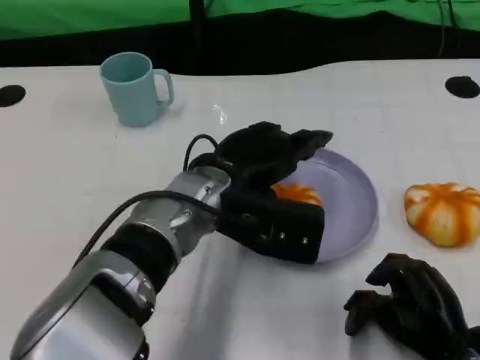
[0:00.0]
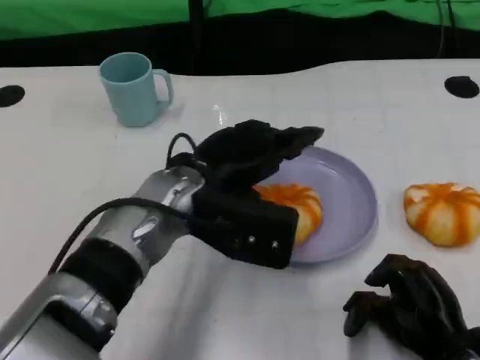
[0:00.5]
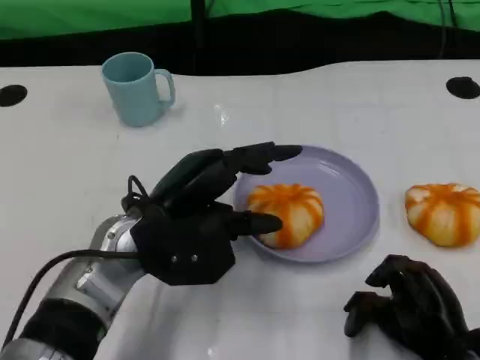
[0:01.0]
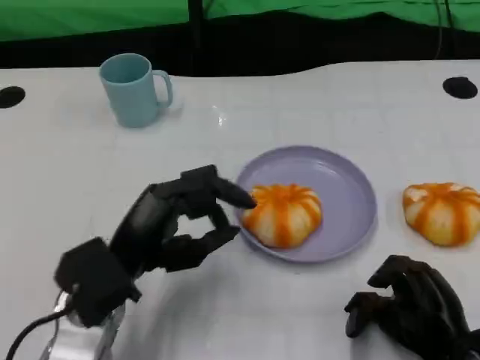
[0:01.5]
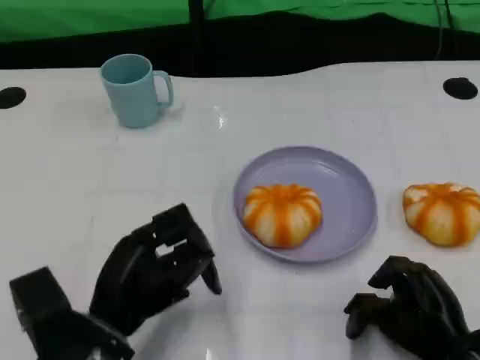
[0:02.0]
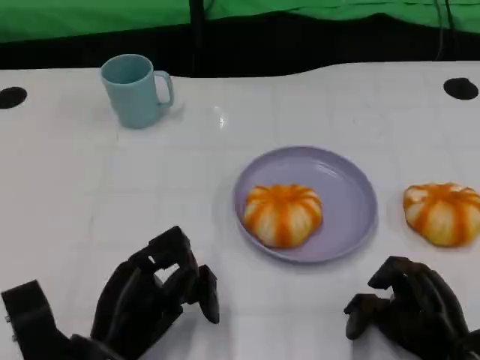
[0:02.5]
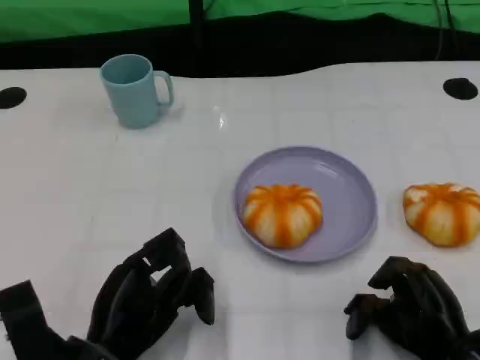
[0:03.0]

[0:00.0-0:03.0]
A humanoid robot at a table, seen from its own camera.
Task of the whole recording: Grasp the bread from the table and place it into the plate.
0:00.0 to 0:01.5: The left hand goes roughly 15 cm to the left, backward and downward.
0:01.5 to 0:03.0: The left hand travels backward by some 5 cm.

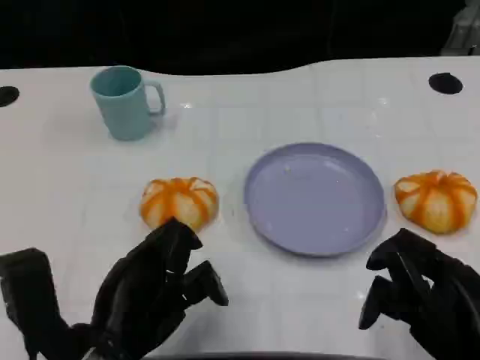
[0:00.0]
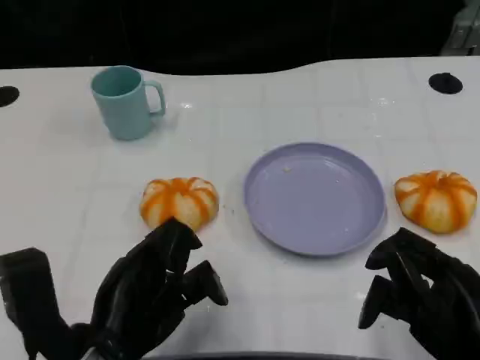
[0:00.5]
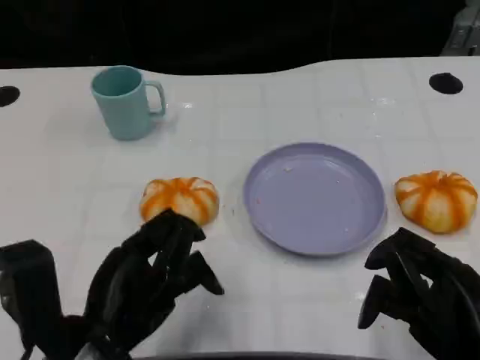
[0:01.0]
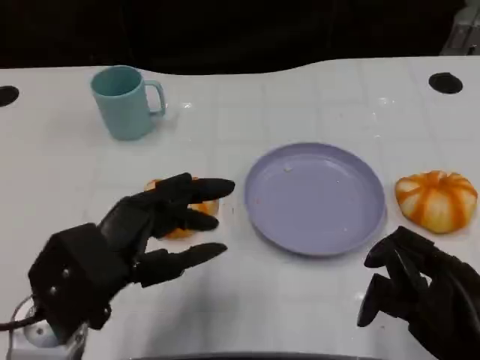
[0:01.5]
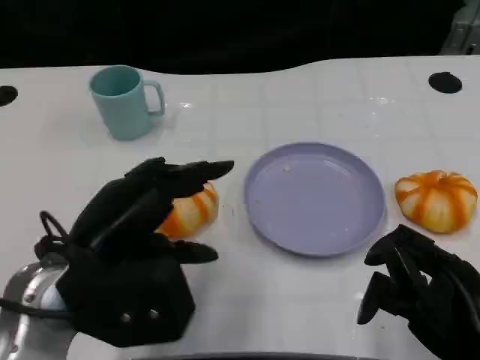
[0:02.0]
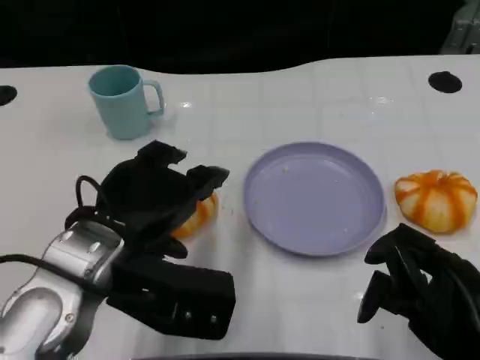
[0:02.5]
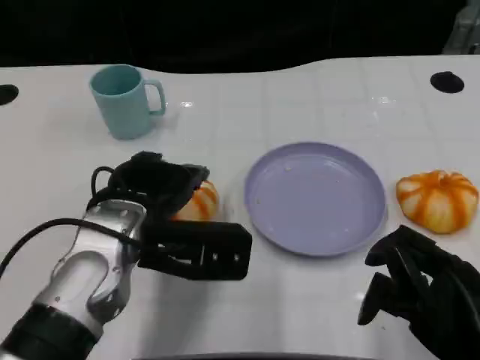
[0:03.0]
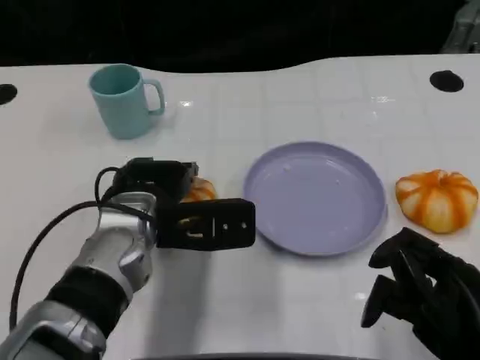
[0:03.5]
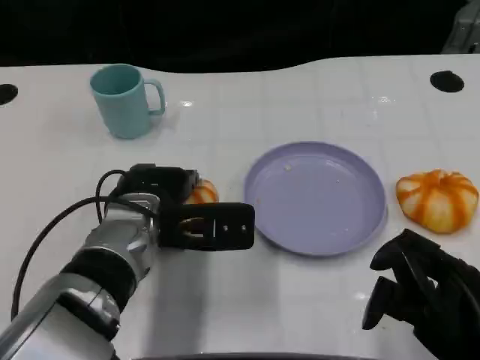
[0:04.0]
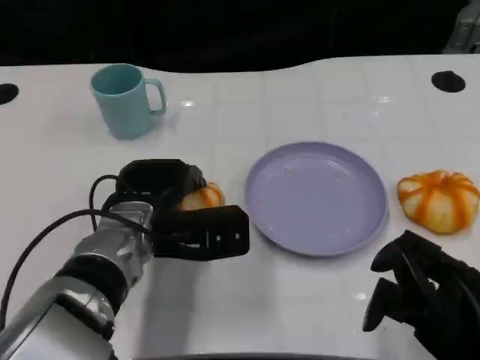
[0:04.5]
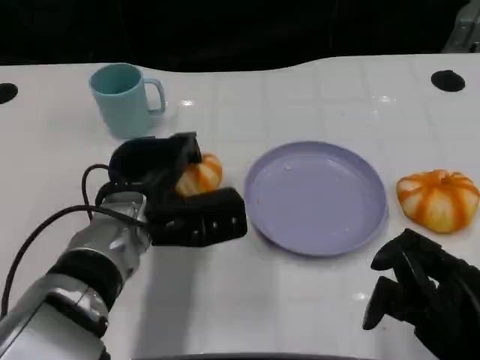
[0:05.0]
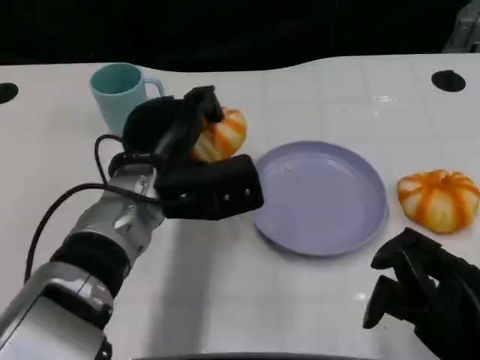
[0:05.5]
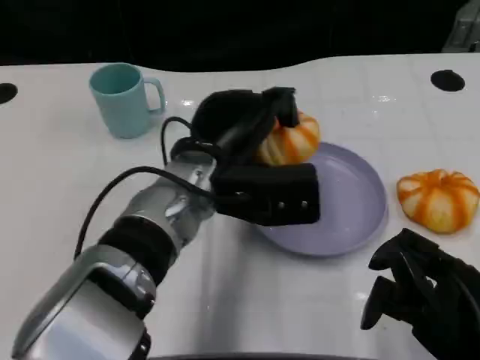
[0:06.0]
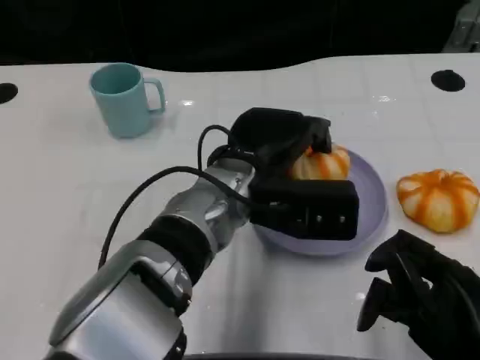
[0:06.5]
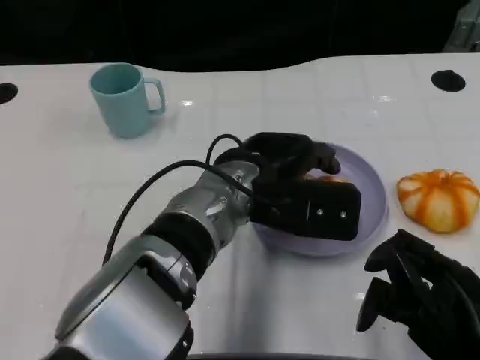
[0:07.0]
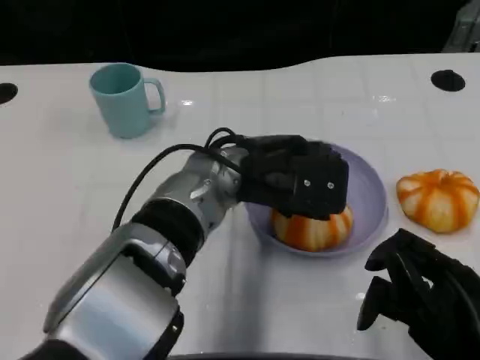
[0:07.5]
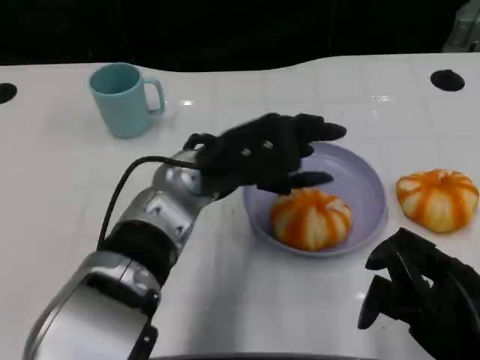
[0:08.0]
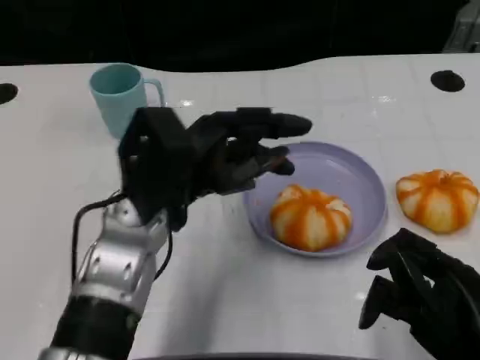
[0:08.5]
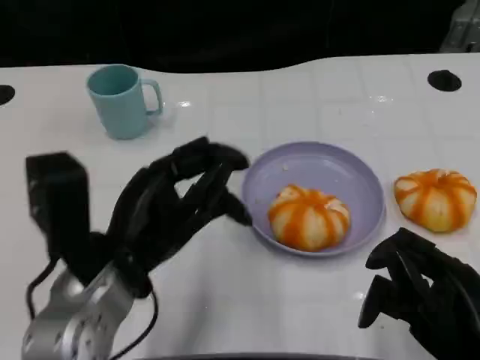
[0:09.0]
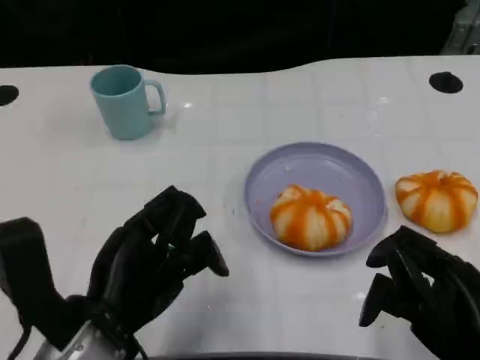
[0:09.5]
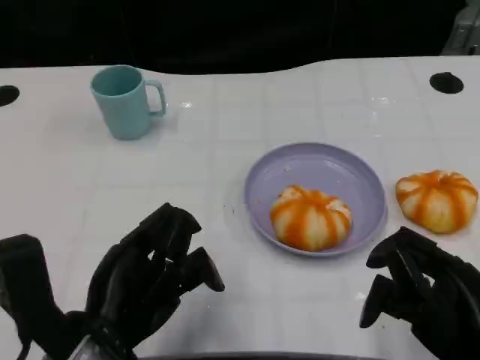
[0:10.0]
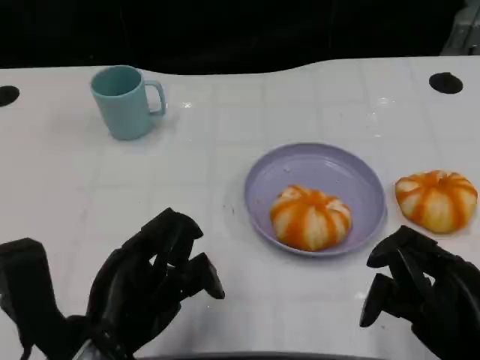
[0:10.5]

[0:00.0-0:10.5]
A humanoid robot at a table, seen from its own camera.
Task of the whole recording: Grasp the bread from the table and place it into the plate.
0:00.0 to 0:02.0: The left hand heads upward, covering roughly 5 cm.
0:02.0 to 0:04.0: The left hand travels forward, downward and to the right by some 15 cm.
0:04.0 to 0:06.5: The left hand shifts some 10 cm to the right.
0:06.5 to 0:08.5: The left hand is displaced to the left by about 10 cm.
0:08.5 to 0:10.5: The left hand shifts about 10 cm backward.

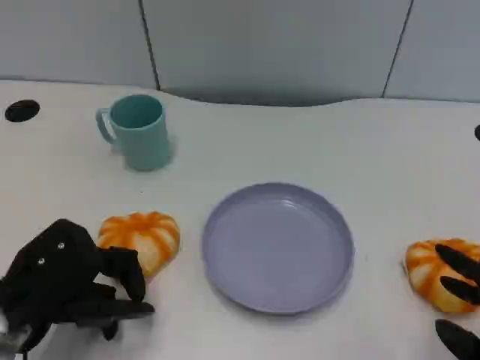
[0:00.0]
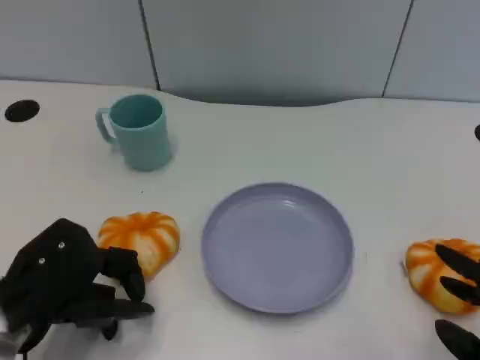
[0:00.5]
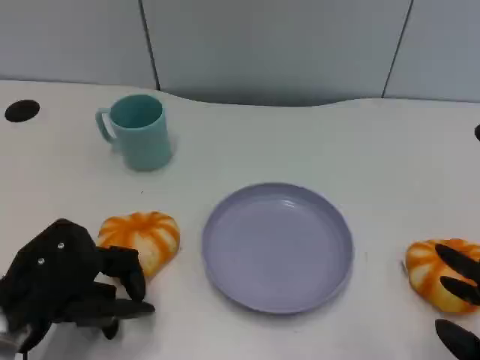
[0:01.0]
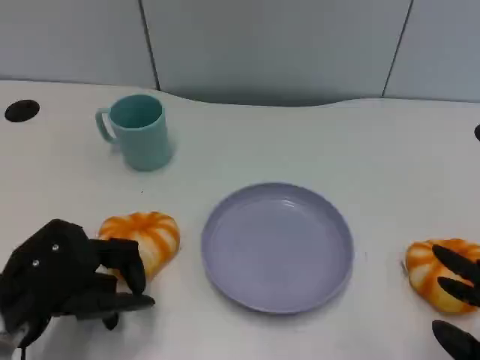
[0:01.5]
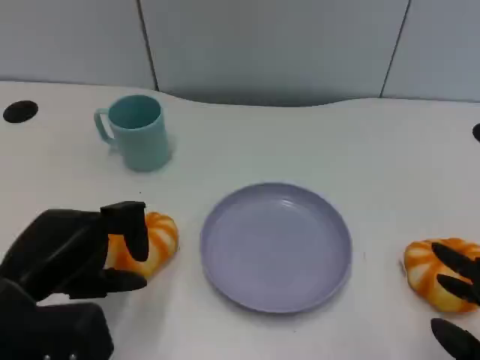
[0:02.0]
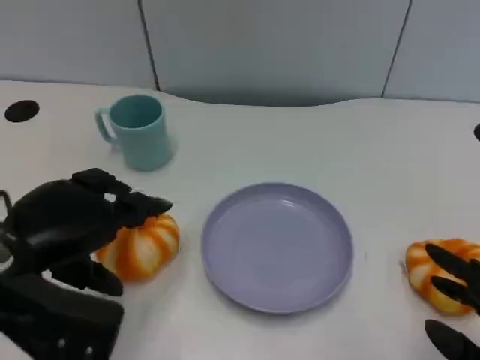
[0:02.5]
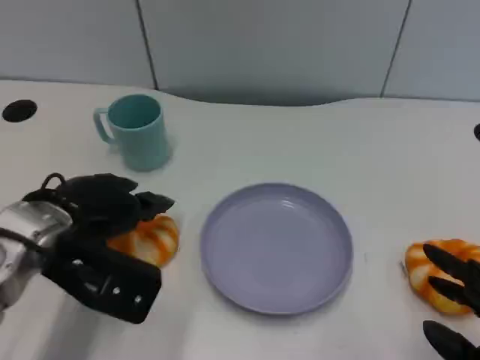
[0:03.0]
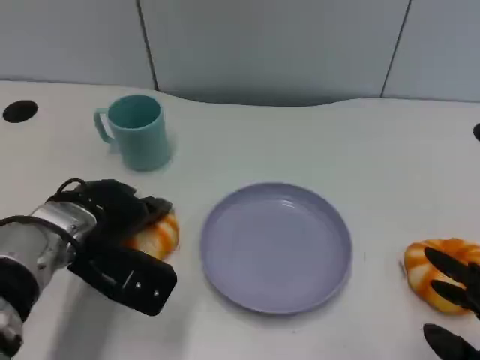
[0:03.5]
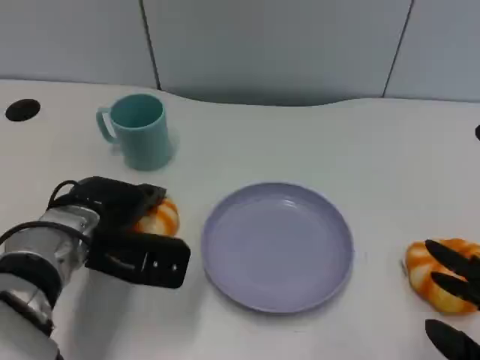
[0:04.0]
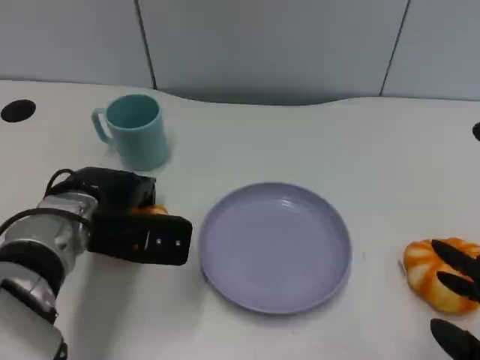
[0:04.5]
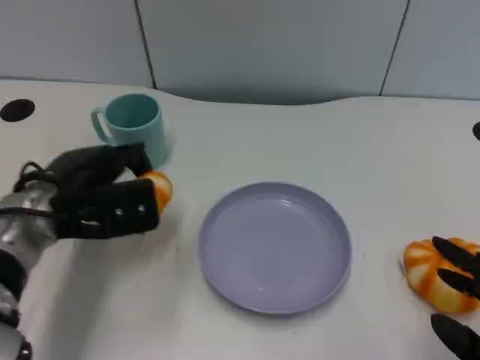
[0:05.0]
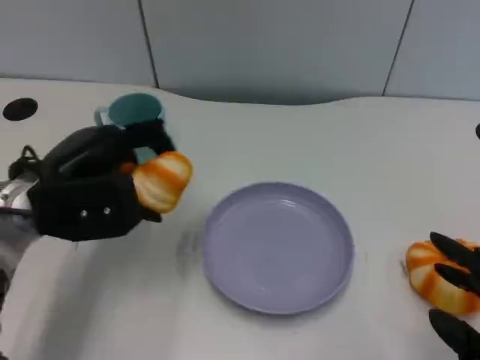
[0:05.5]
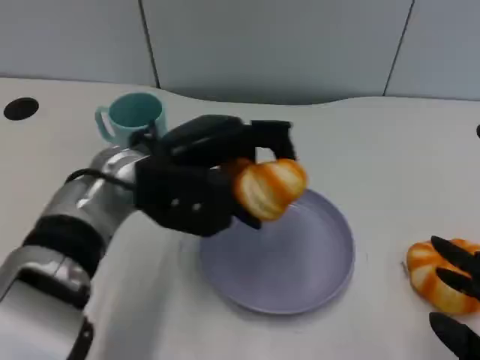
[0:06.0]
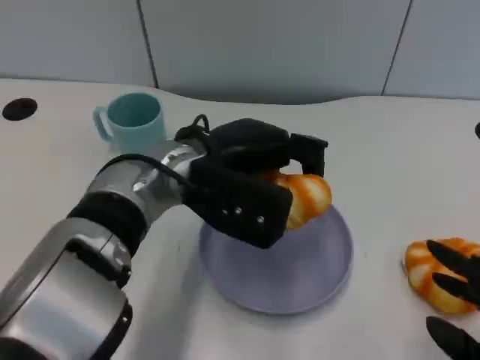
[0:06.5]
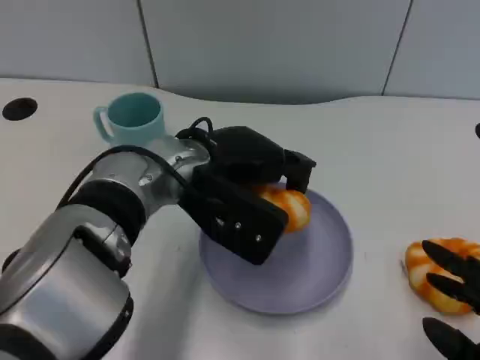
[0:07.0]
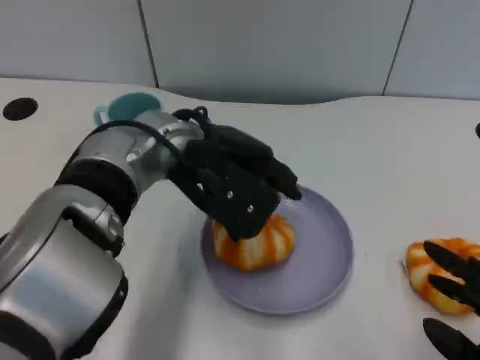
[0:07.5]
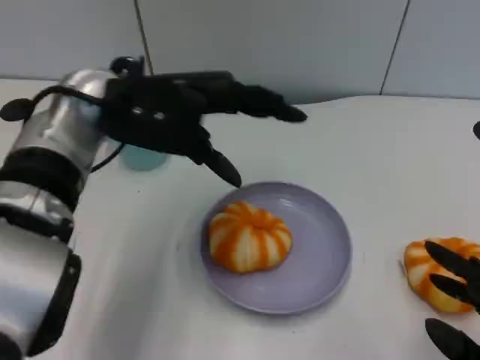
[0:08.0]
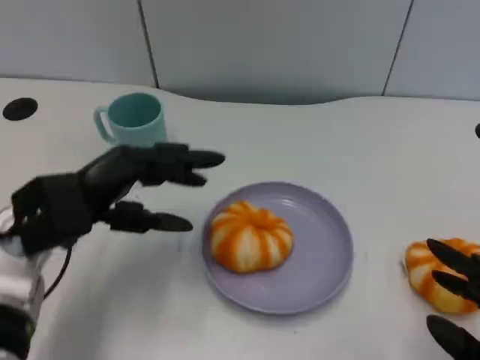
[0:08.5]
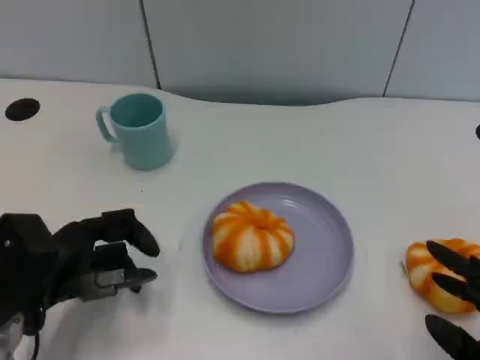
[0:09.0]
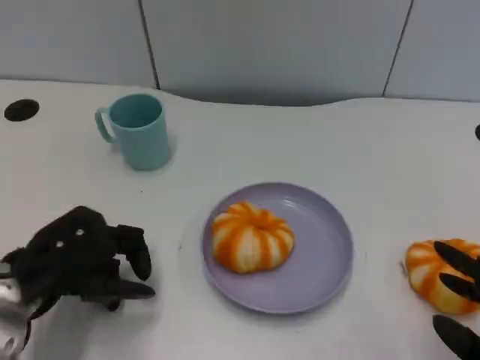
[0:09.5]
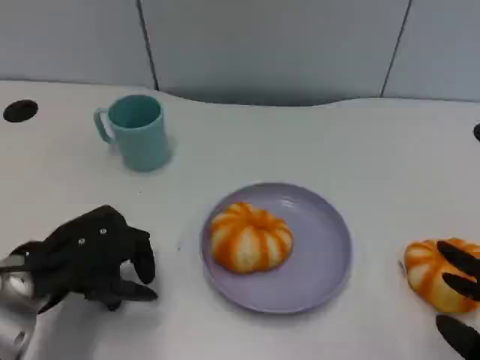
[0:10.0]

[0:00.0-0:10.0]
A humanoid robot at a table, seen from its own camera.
Task of the whole recording: Grasp the bread from the table and place it into the plate.
0:02.0 to 0:04.0: The left hand heads forward and to the right, covering approximately 10 cm.
0:04.0 to 0:06.0: The left hand goes roughly 10 cm upward and to the right.
0:06.0 to 0:08.0: The left hand is displaced upward by roughly 5 cm.
0:08.0 to 0:10.0: The left hand goes approximately 20 cm downward, backward and to the left.
